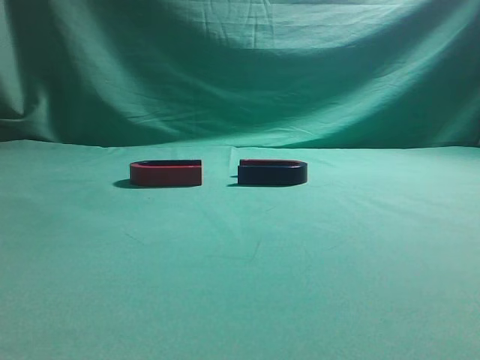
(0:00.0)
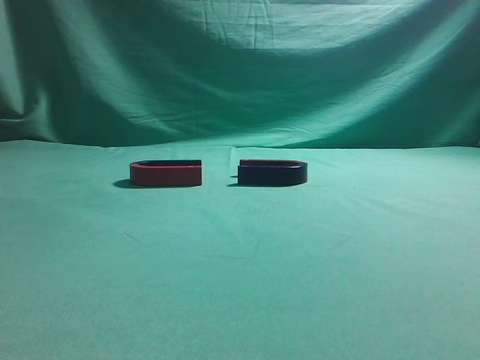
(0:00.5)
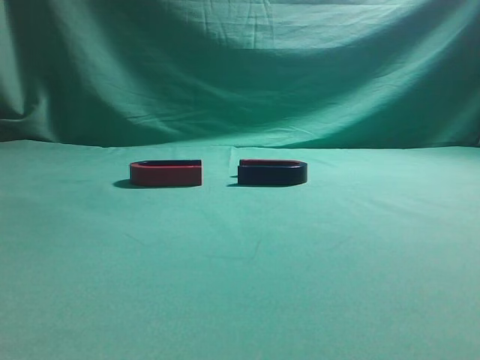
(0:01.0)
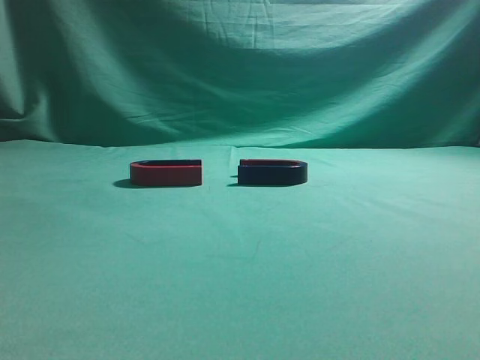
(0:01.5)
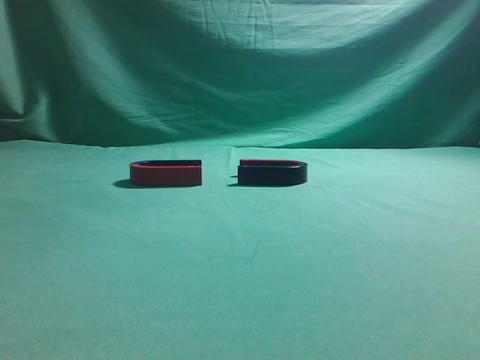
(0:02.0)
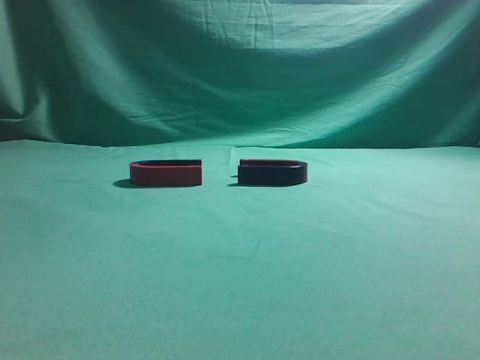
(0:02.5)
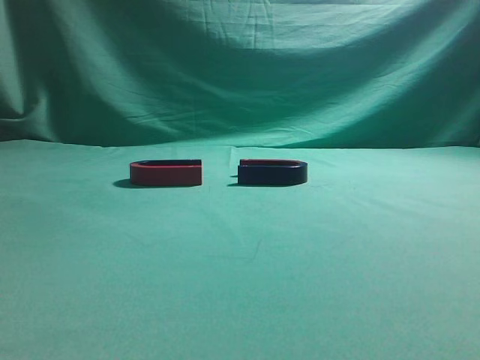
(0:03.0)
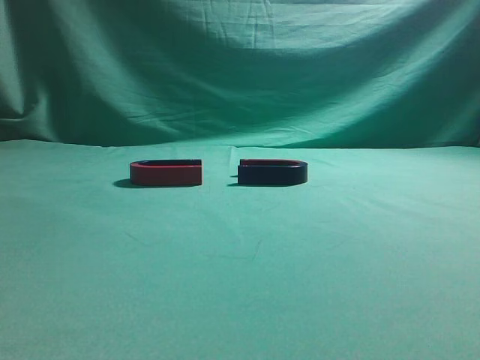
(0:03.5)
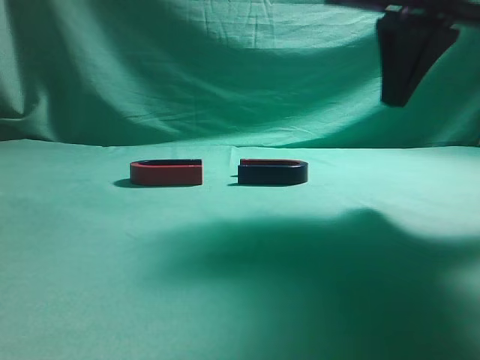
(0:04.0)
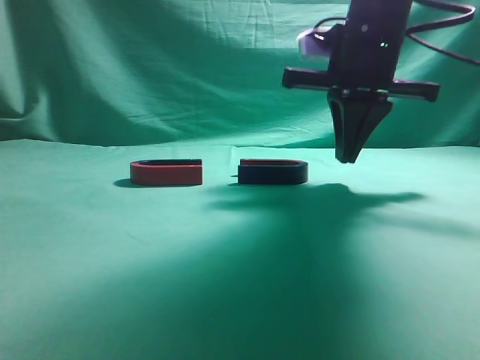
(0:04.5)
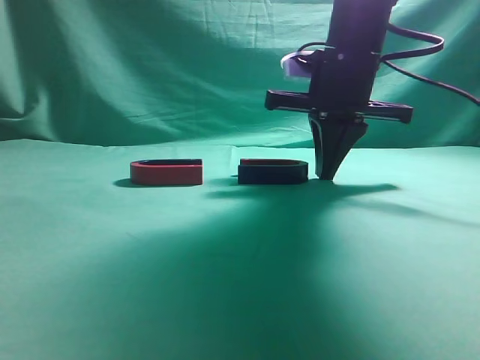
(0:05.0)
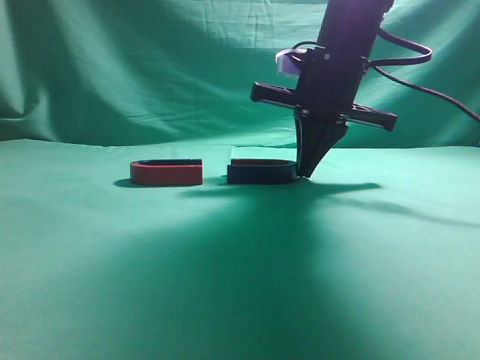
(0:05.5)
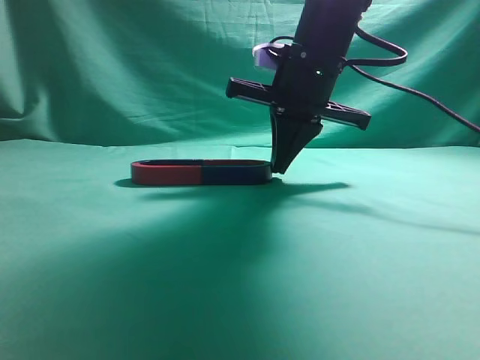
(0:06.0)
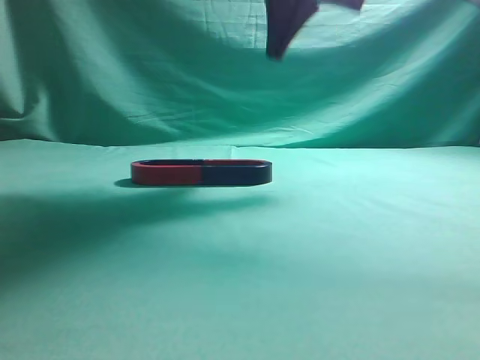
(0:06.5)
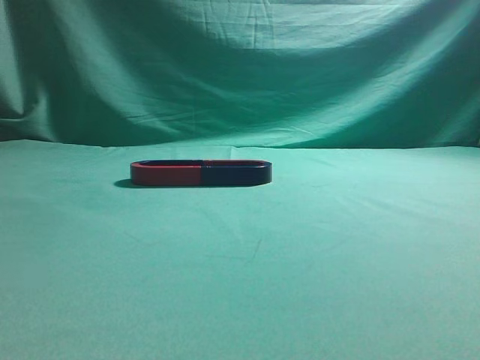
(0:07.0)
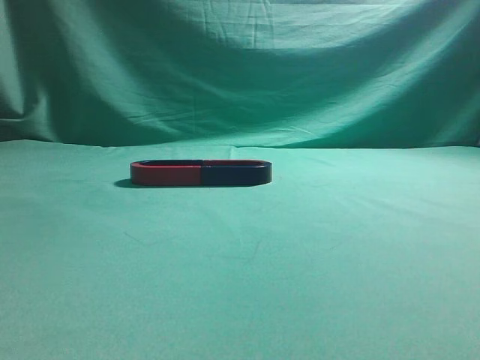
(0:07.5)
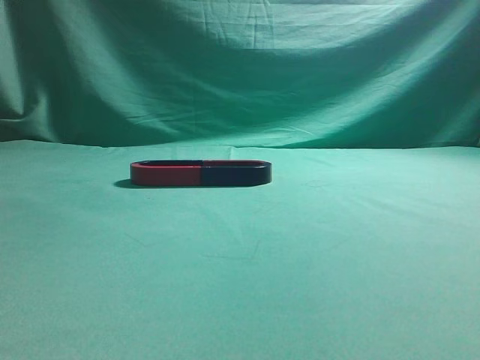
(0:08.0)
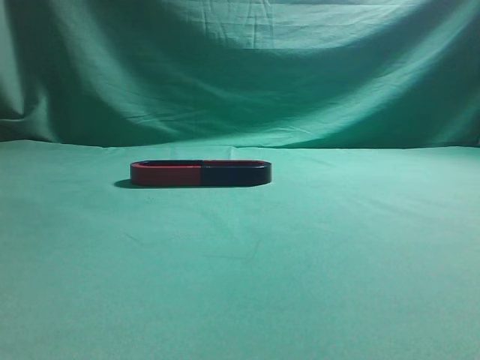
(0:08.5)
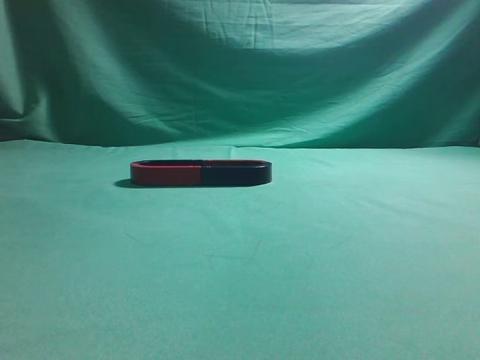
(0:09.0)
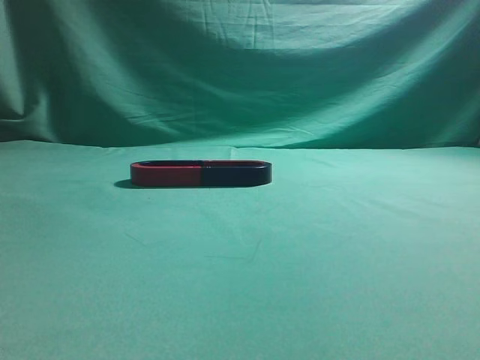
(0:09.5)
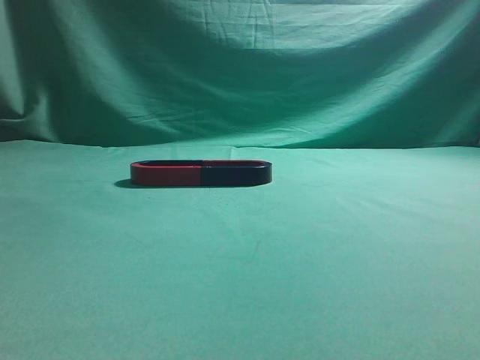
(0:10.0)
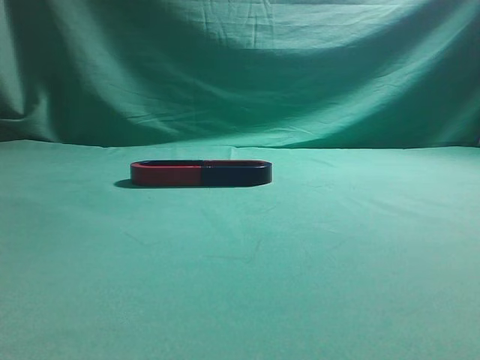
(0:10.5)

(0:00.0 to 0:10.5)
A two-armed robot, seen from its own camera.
Task of the whole recording: push the magnet on the table from its original position to another position.
Step, 0:00.0 - 0:06.0: Push the magnet on the right to connect the magnet on the left.
0:02.0 - 0:04.0: The right gripper travels forward and to the left by approximately 30 cm.
0:04.0 - 0:06.5: The right gripper heads forward, to the left and upward, covering about 15 cm.
0:06.5 - 0:08.5: The right gripper goes roughly 40 cm backward and to the right.
